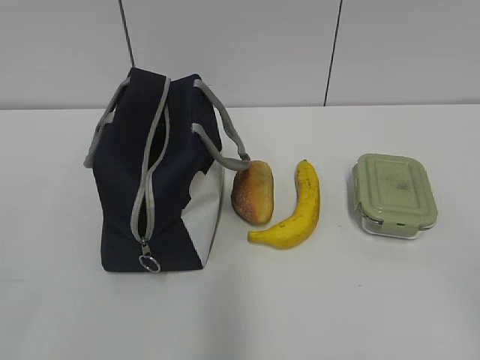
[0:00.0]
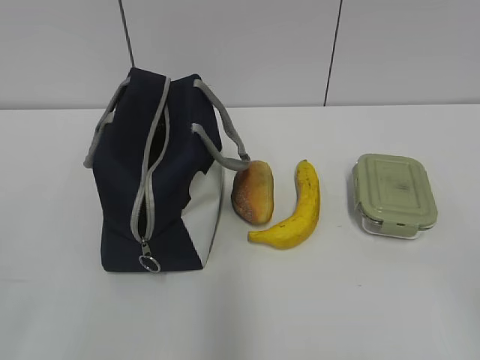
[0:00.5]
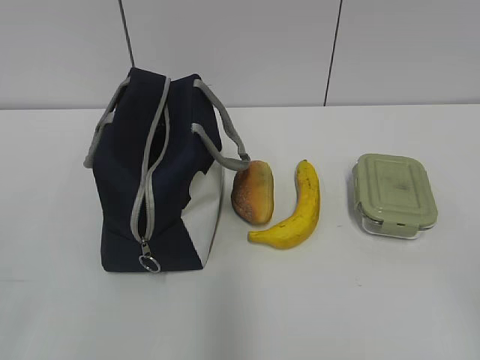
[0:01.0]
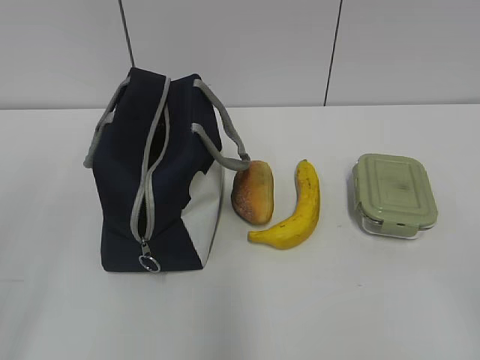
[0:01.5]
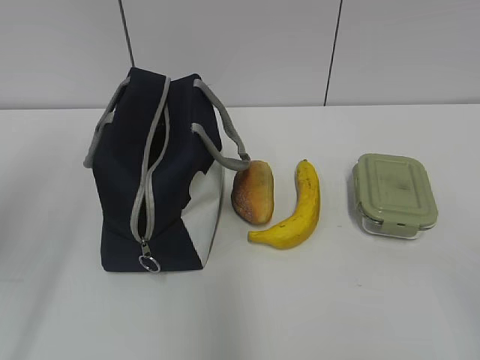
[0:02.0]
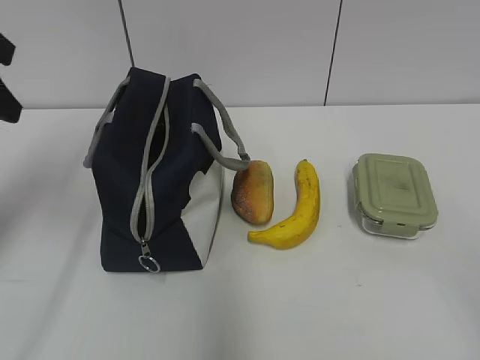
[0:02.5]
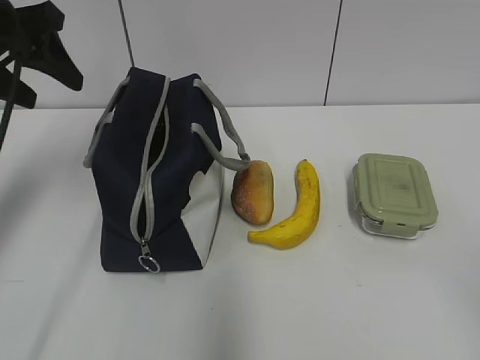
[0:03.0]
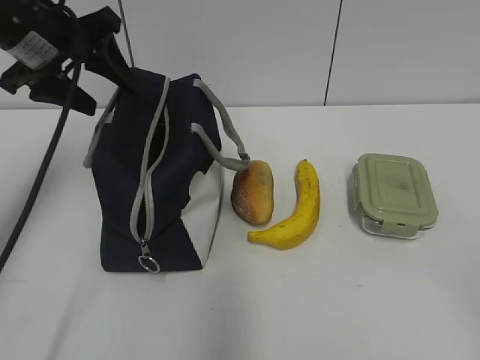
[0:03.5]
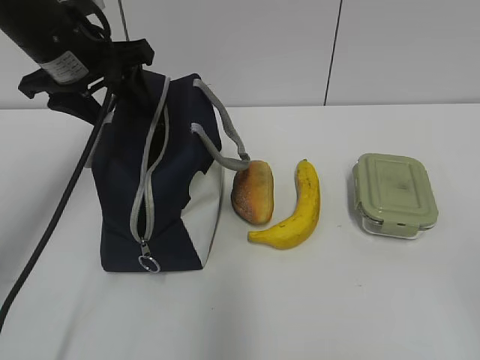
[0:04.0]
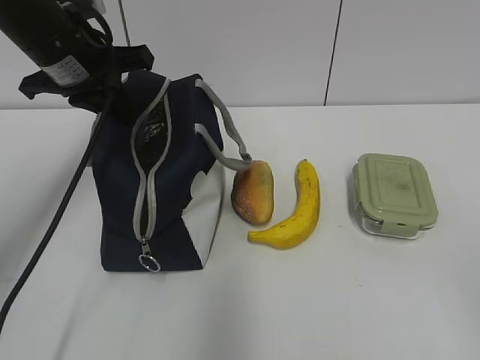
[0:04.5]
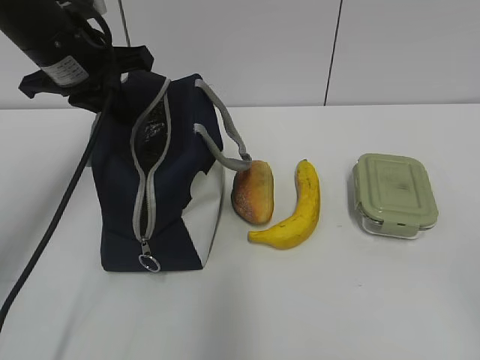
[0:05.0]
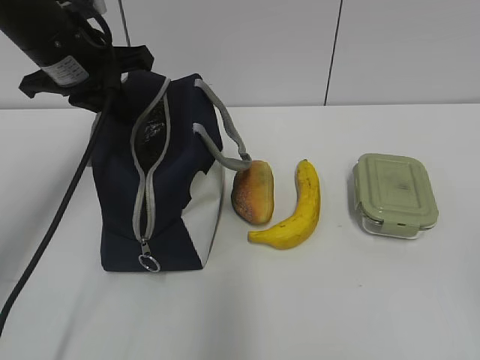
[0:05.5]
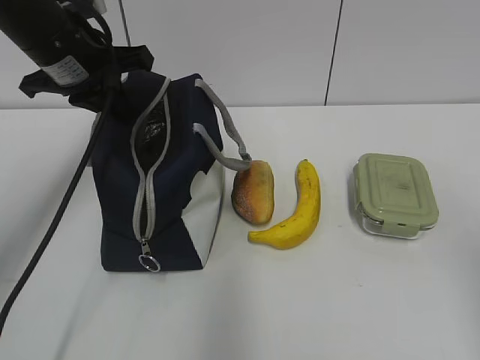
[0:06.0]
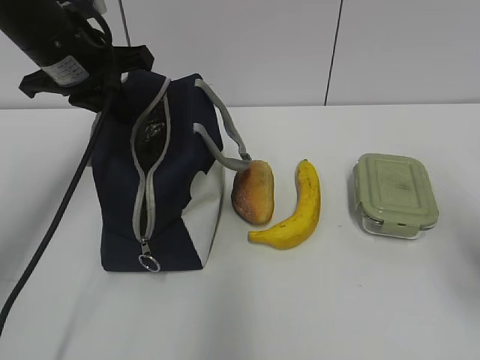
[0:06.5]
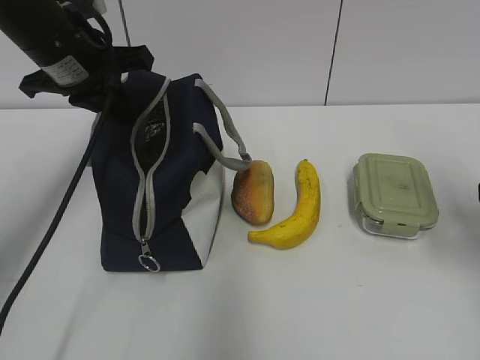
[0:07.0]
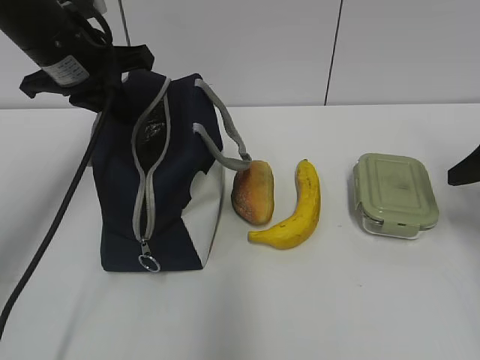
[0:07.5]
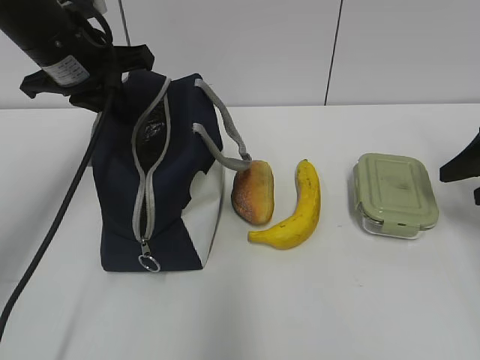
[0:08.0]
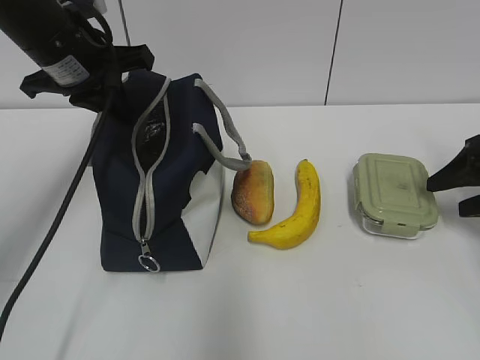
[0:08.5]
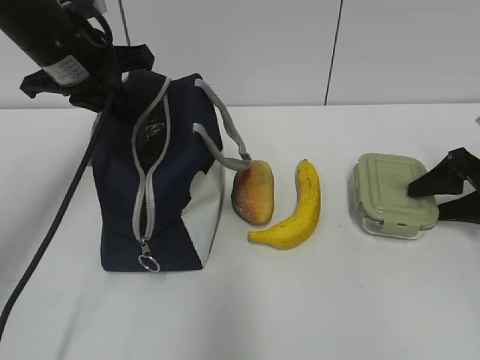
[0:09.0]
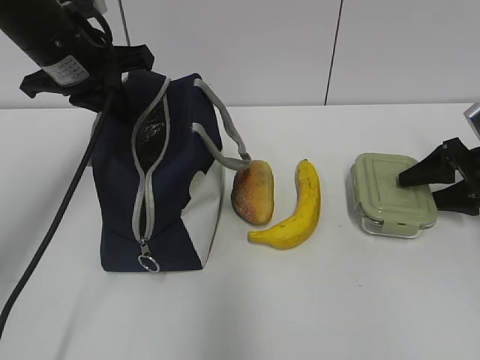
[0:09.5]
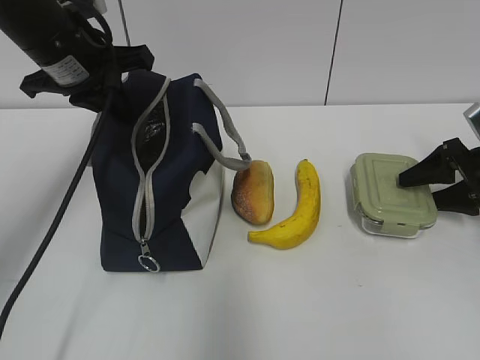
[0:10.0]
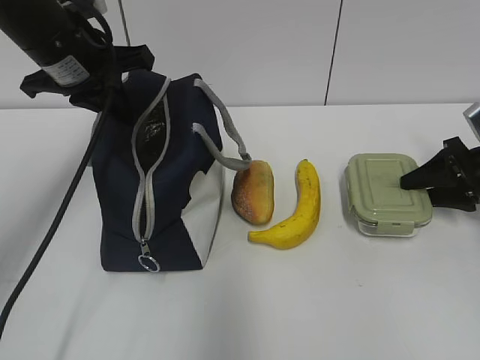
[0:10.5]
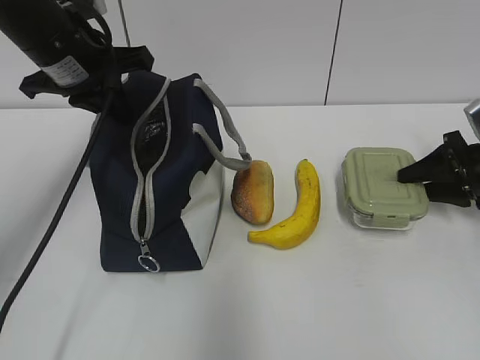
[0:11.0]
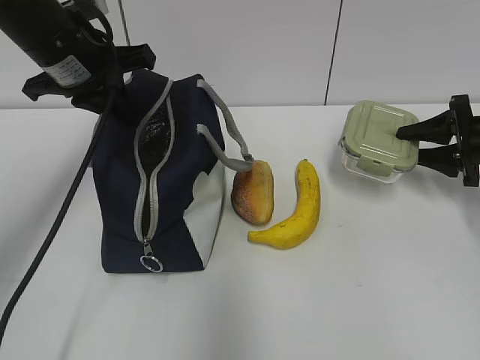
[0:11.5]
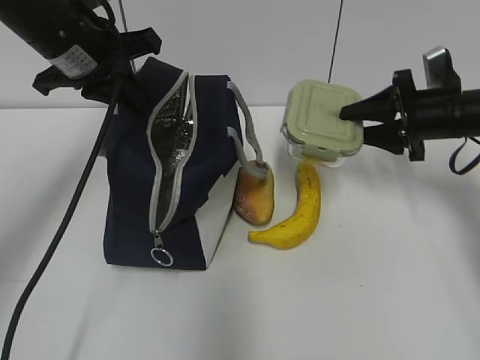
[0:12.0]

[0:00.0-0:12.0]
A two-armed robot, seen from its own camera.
Step, 0.0 to 10.5 s: Grab the lunch box with your right hand.
2.0 to 4.0 s: The left gripper is displaced forward and to the right by some 25 cm, and opens up.
4.0 to 6.0 s: The right gripper shifts some 10 cm forward. Meanwhile the left gripper closes.
6.0 to 8.0 s: The right gripper moves forward, approximately 25 cm.
8.0 to 10.0 s: The right gripper goes about 10 cm downward and forward.
10.0 to 12.0 s: The right gripper travels to the left and upward by roughly 10 cm, and closes.

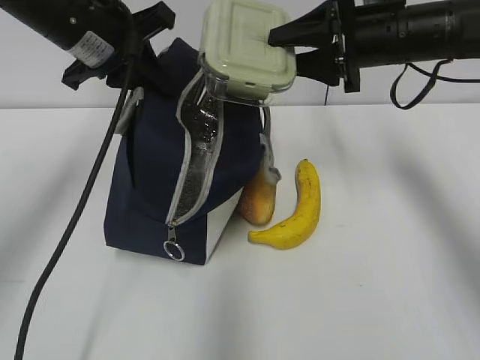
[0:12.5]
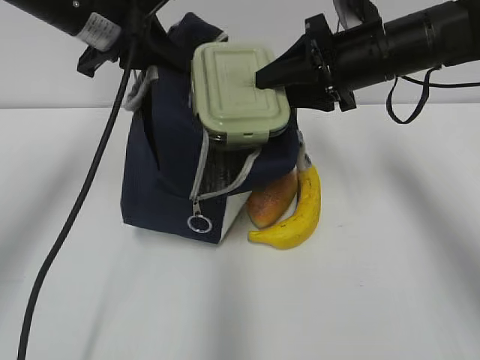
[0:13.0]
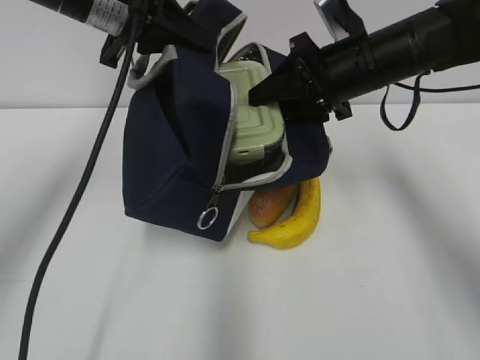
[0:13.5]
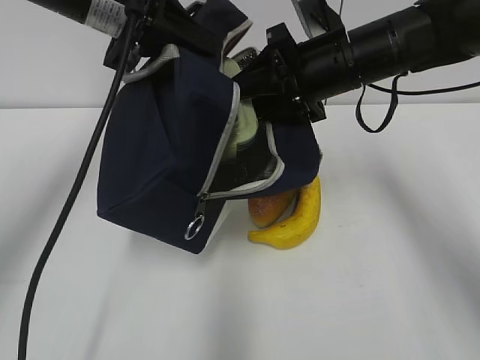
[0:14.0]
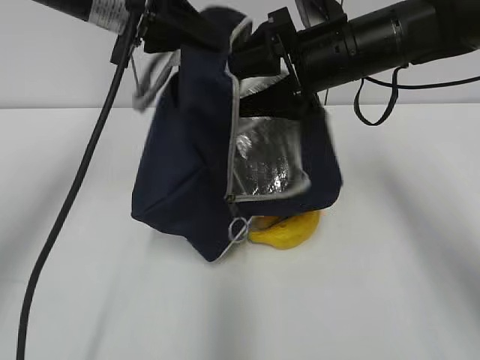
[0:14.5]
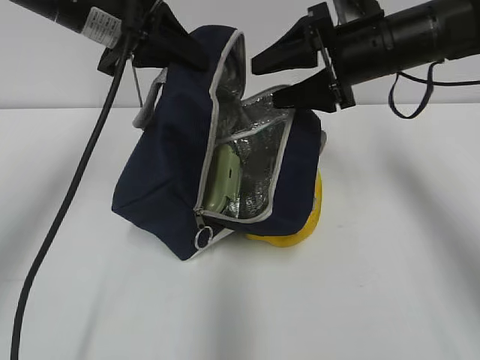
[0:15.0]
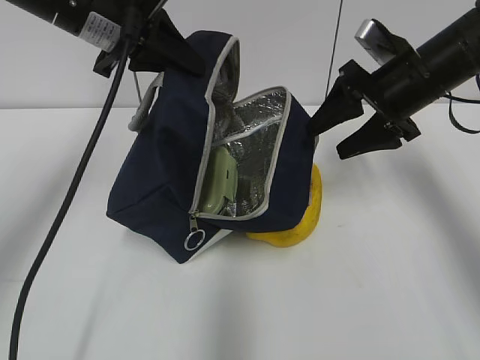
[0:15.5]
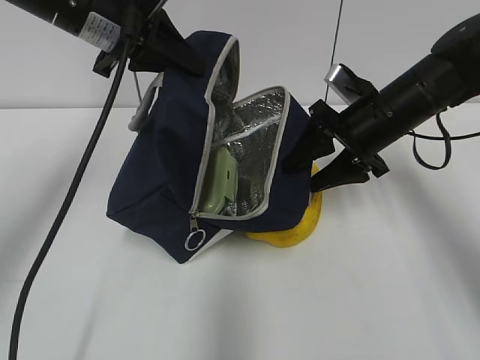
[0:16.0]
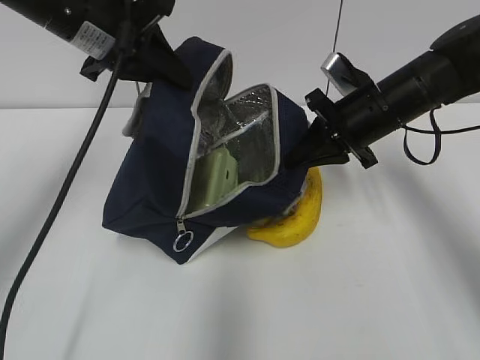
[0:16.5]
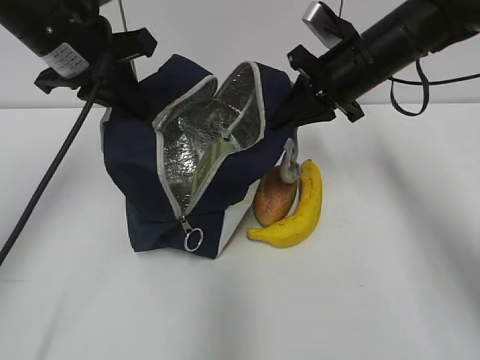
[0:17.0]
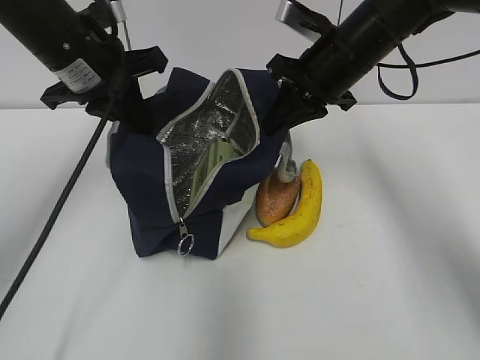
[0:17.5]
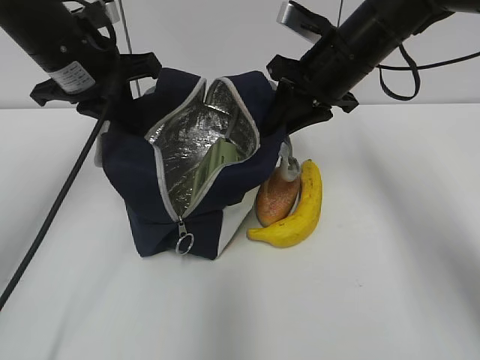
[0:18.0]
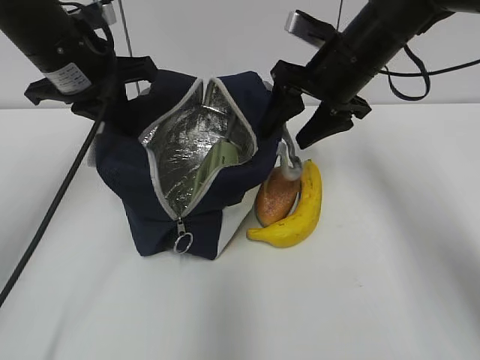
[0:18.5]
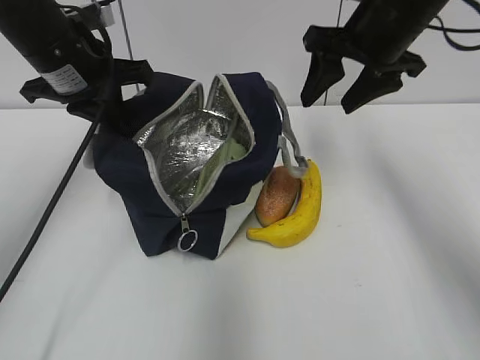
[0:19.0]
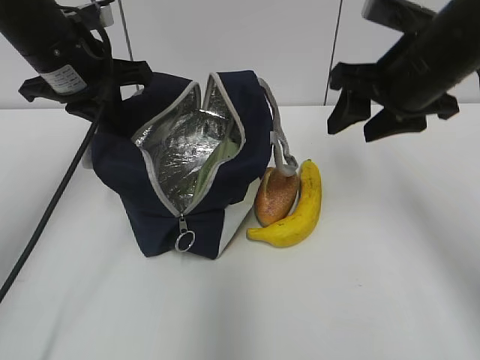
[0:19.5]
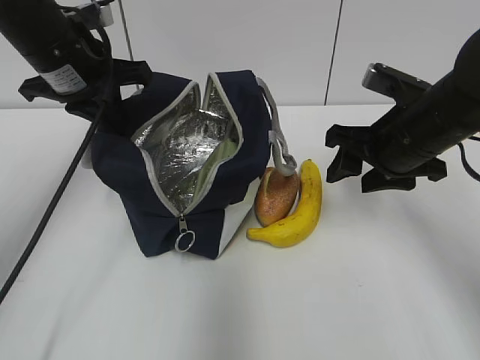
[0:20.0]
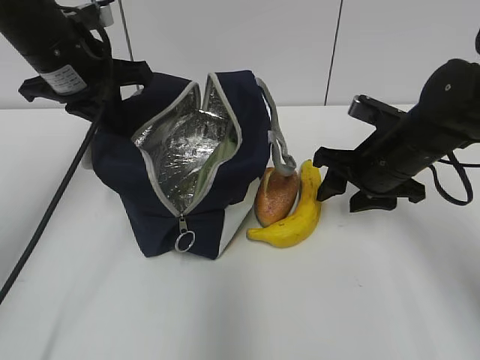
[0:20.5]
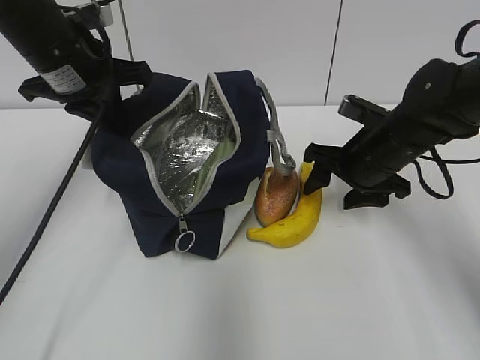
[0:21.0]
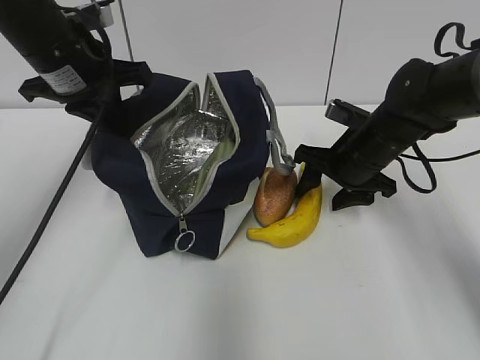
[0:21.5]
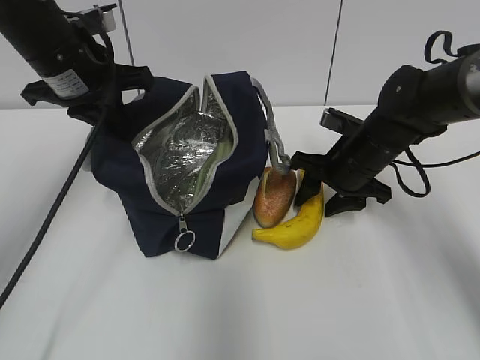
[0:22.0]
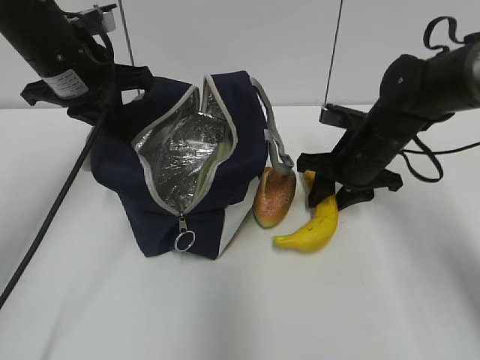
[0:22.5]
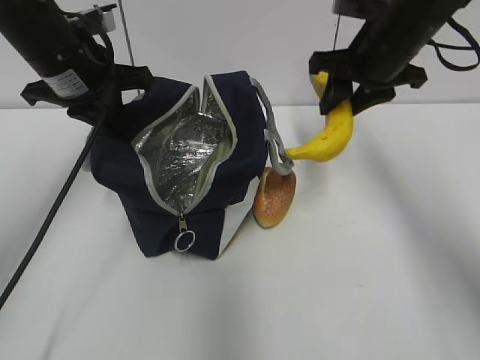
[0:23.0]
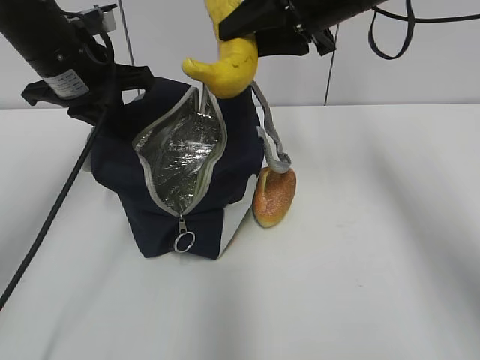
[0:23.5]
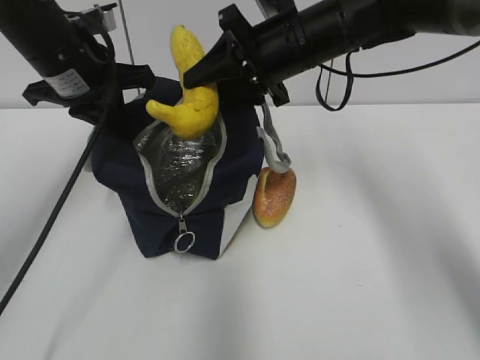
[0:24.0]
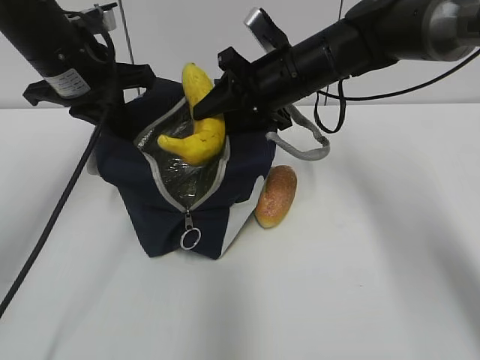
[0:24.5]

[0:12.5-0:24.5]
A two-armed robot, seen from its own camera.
Step, 13.0 to 14.0 s: Place it into the bag with your right hand.
Step, 15.0 to 22.0 s: Grab the banana with your right hand.
12.5 to 14.5 s: The right gripper shifts approximately 5 cm to the left, and opens its fingers.
14.5 to 16.5 s: The right gripper goes approximately 10 cm downward and to the right, and closes its fingers.
16.5 to 18.5 s: The right gripper shifts approximately 5 cm upward, and opens its fingers.
18.5 to 20.5 s: The right gripper shifts some 10 cm downward and backward.
20.5 to 22.5 s: The grippers move only a little.
22.5 to 24.5 s: The right gripper shifts some 10 cm to the left and upward.

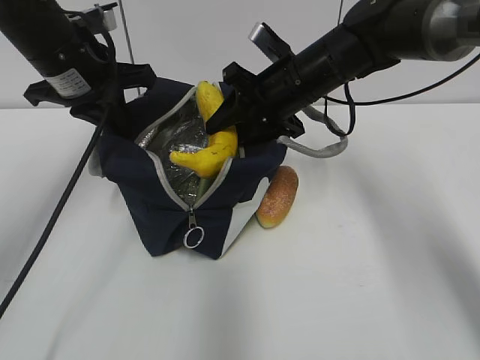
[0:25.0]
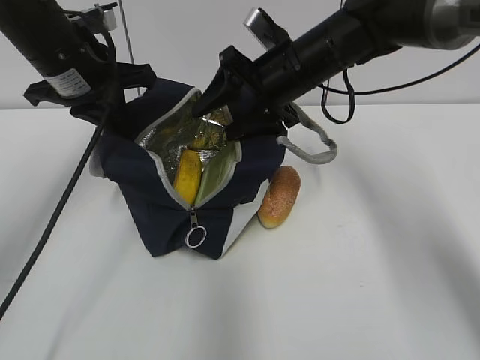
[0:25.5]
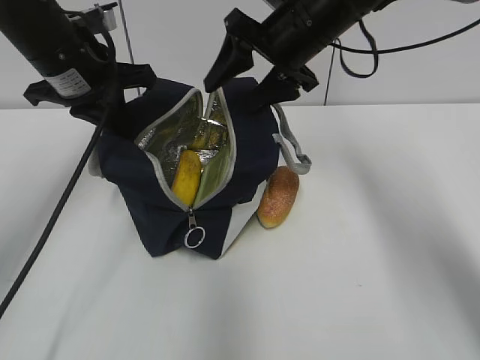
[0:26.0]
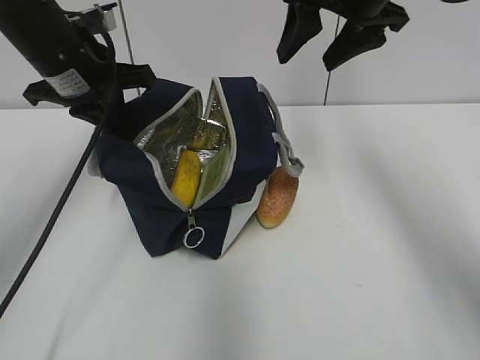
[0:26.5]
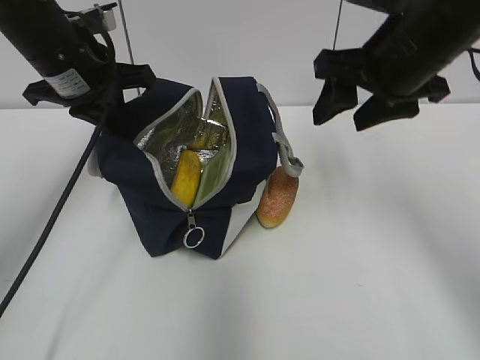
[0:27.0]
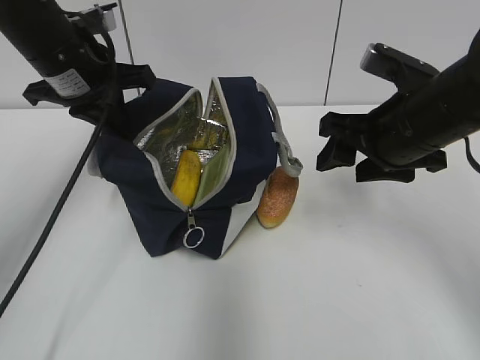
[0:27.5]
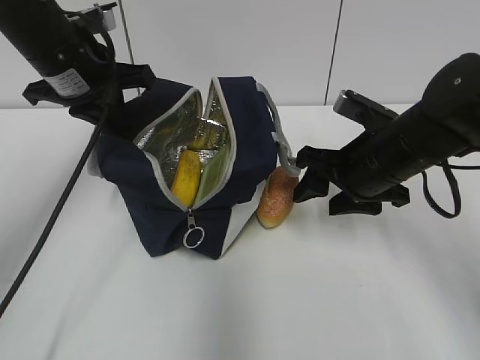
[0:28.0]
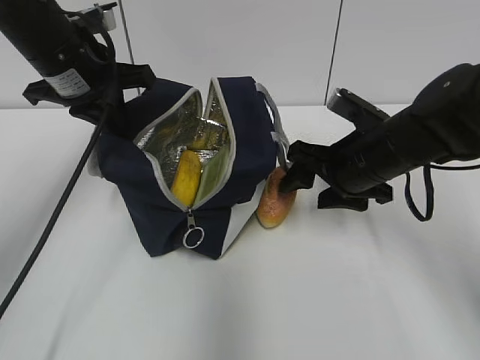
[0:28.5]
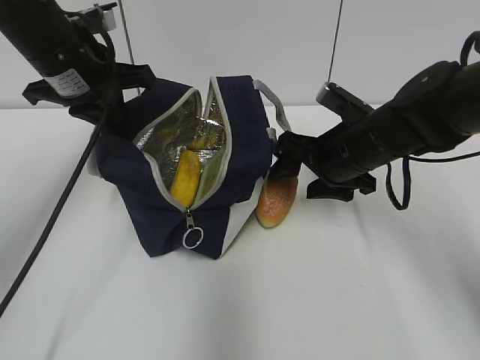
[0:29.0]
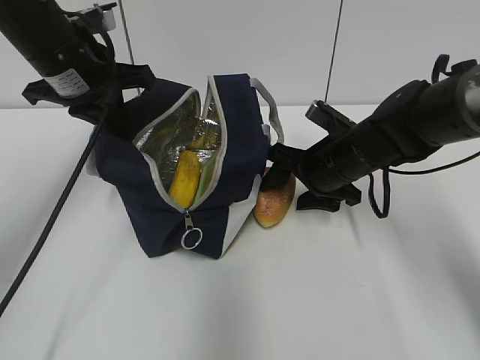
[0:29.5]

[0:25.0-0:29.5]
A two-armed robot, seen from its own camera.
25.0 to 27.0 s: The right gripper moves backward, upward and to the right, approximately 15 cm.
27.0 to 29.5 s: The right gripper moves downward, roughly 15 cm.
